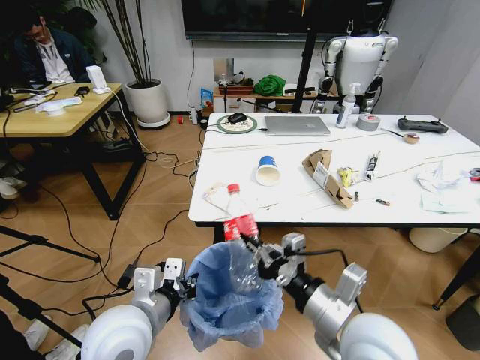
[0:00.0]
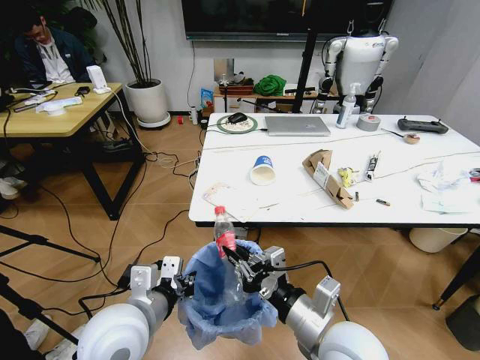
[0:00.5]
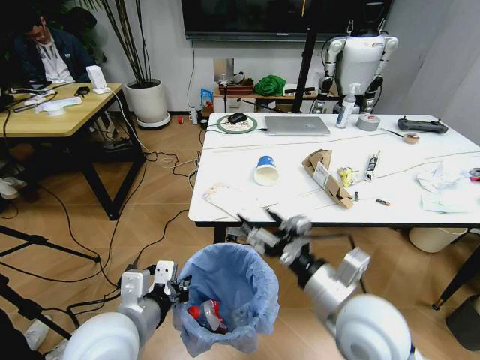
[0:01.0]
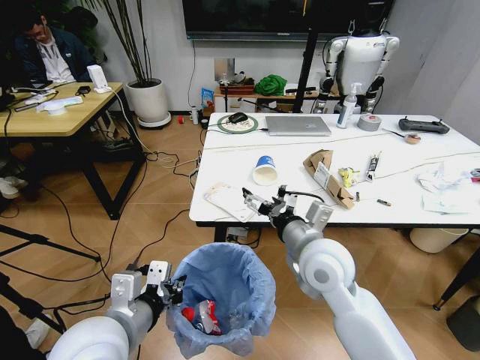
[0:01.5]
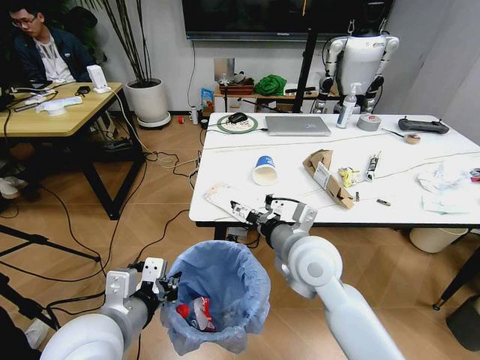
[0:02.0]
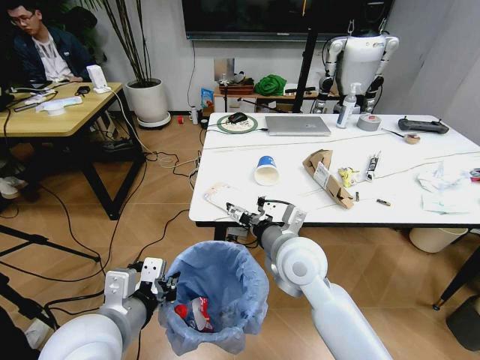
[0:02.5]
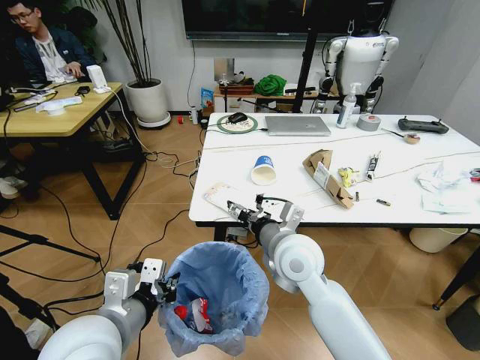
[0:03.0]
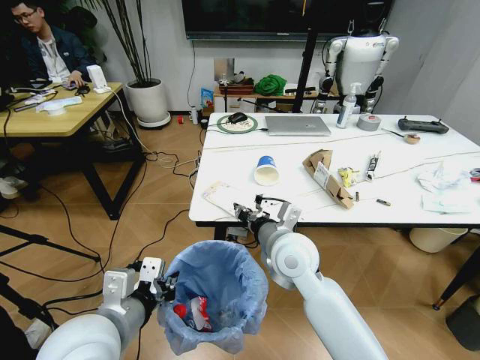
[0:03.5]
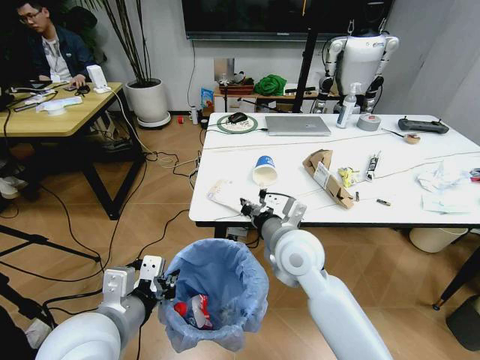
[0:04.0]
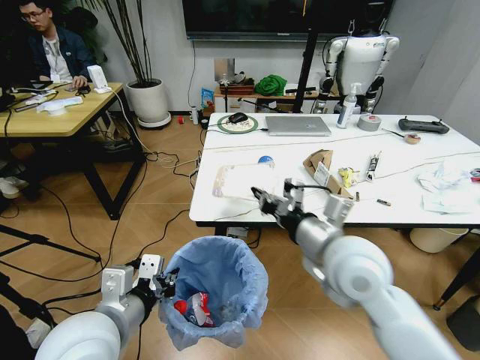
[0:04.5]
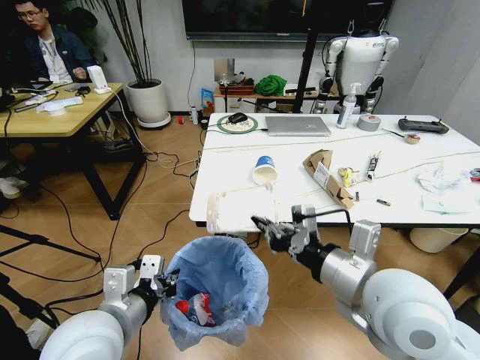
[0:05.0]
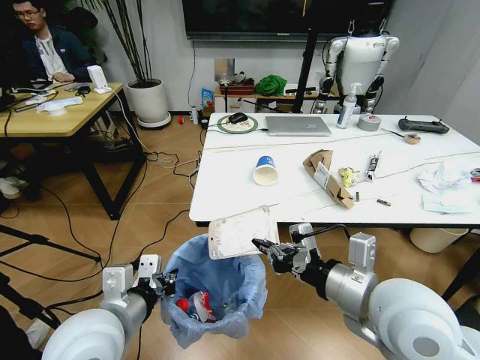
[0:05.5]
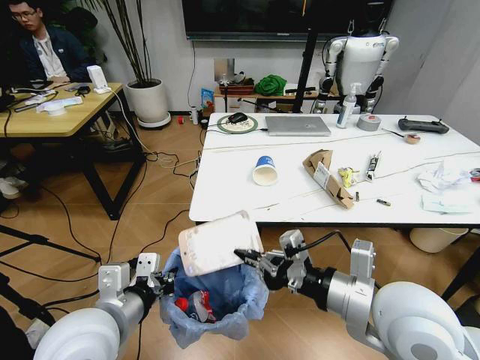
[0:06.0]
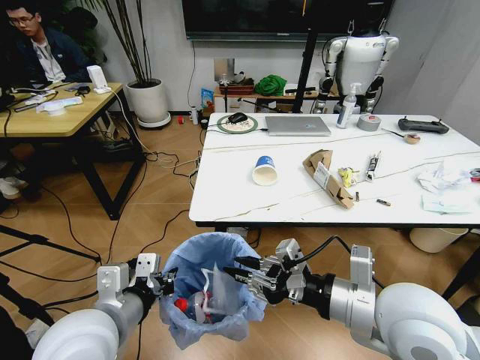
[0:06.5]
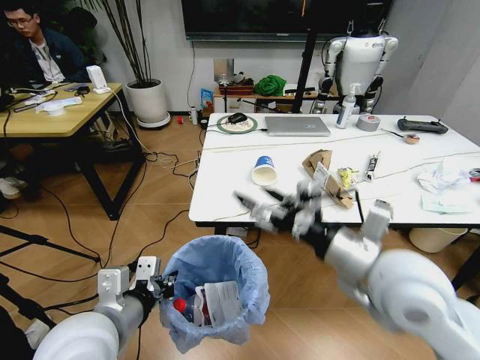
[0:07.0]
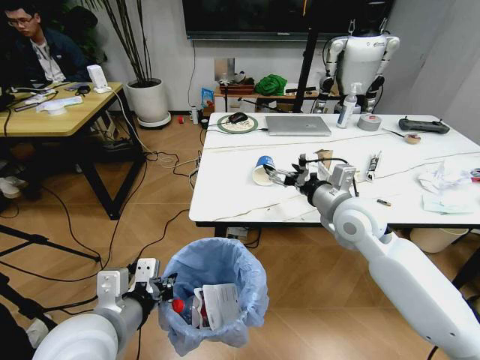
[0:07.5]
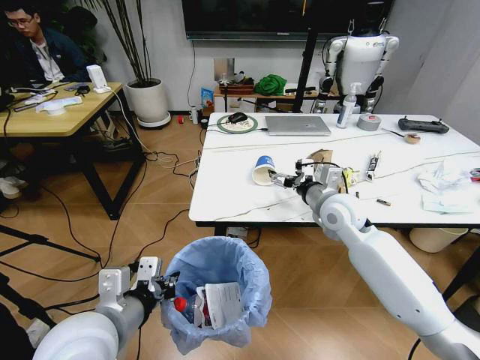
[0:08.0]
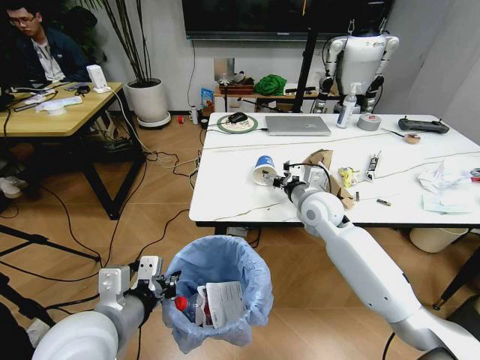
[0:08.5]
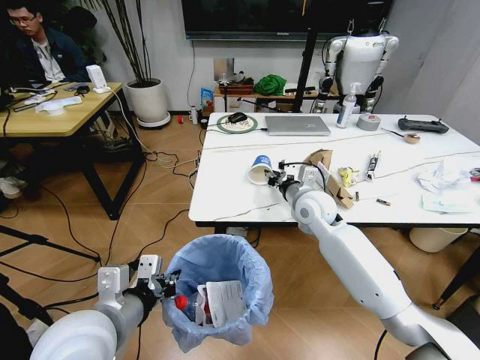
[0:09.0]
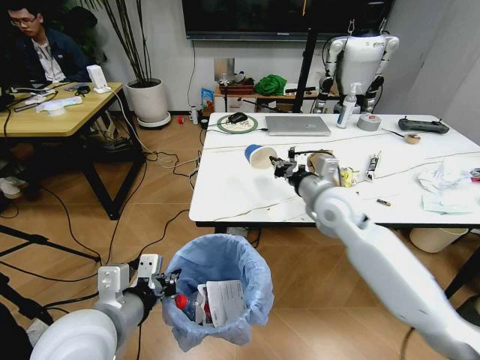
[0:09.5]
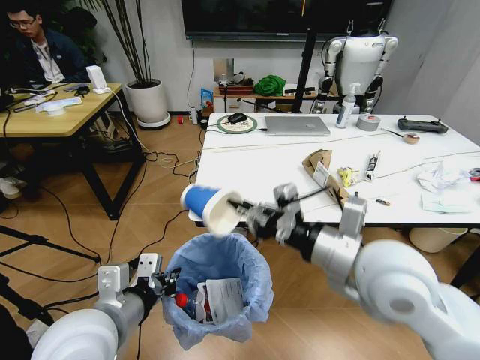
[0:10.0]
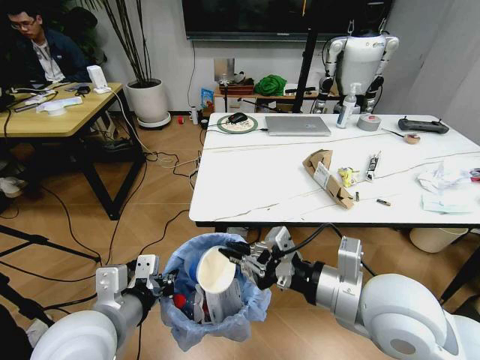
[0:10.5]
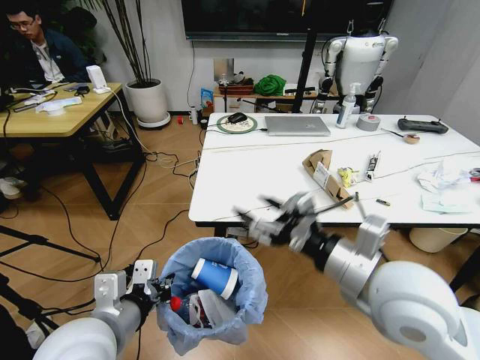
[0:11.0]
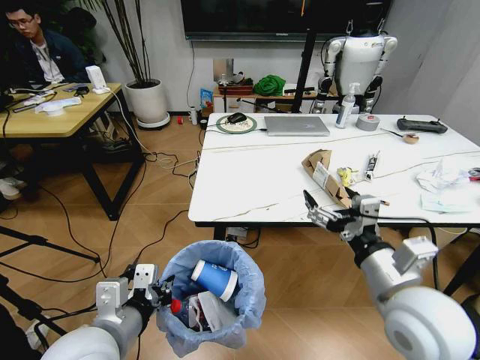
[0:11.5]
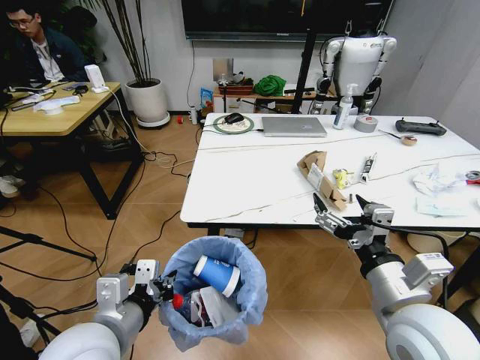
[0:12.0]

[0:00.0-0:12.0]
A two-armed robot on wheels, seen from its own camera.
Task of the whole recording: Pick up the trash bin and place the trash from the table into it.
0:00.0 to 0:02.0: The right gripper shifts some 15 cm forward and to the left, and opens.
0:02.0 to 0:04.0: The right gripper closes its fingers.
0:04.0 to 0:06.0: The right gripper goes some 20 cm backward, to the right and upward.
0:06.0 to 0:08.0: The right gripper moves forward, about 25 cm, and opens up.
0:08.0 to 0:10.0: The right gripper heads backward and upward, covering roughly 20 cm, and closes its fingers.
0:10.0 to 0:12.0: The right gripper heads backward and downward, covering some 10 cm, and opens.

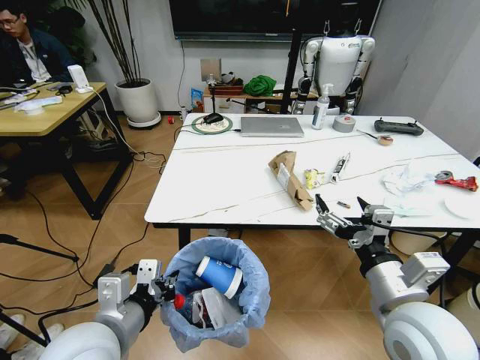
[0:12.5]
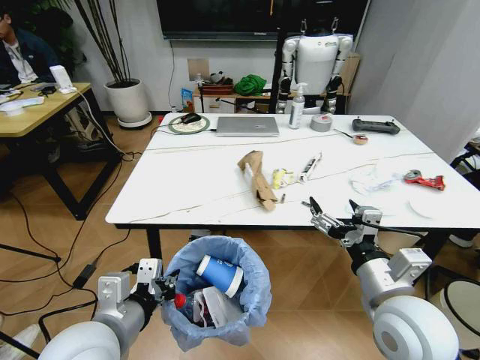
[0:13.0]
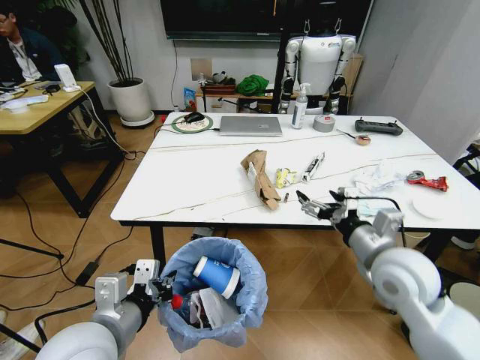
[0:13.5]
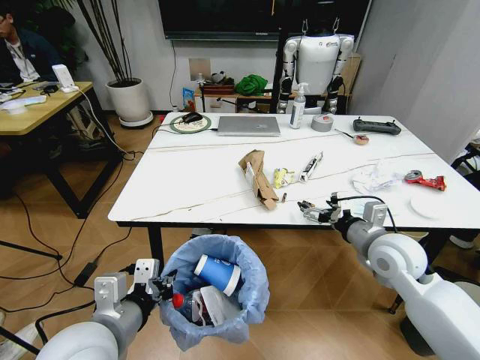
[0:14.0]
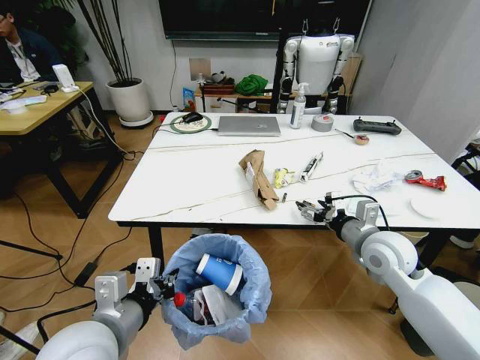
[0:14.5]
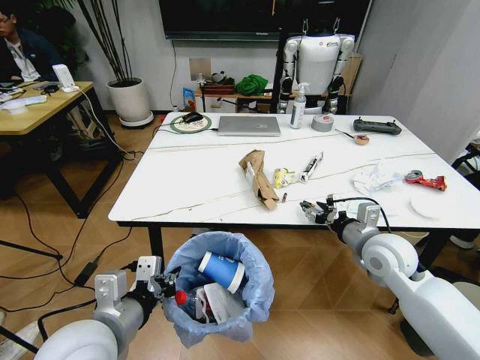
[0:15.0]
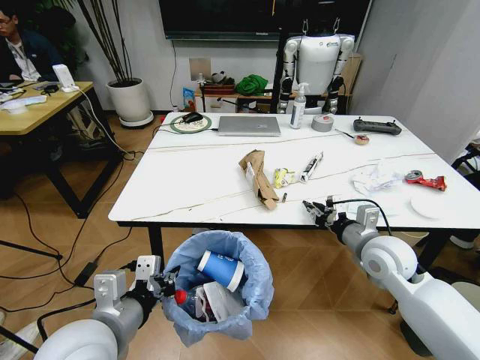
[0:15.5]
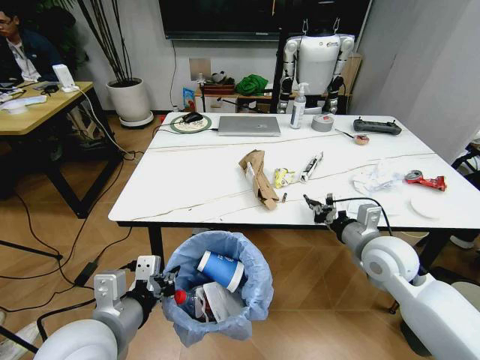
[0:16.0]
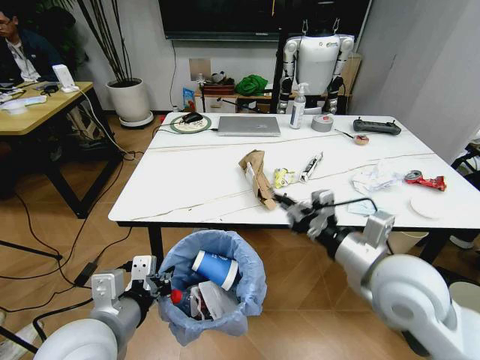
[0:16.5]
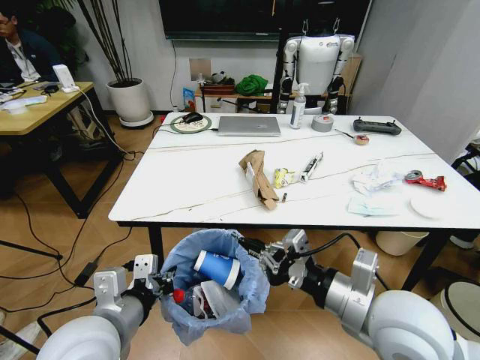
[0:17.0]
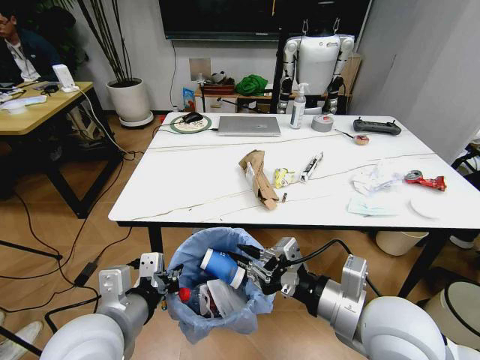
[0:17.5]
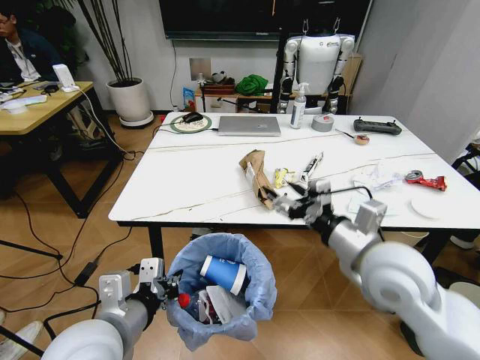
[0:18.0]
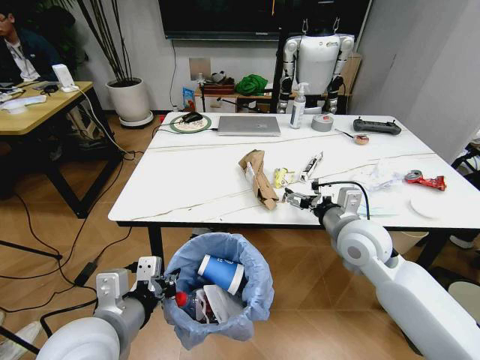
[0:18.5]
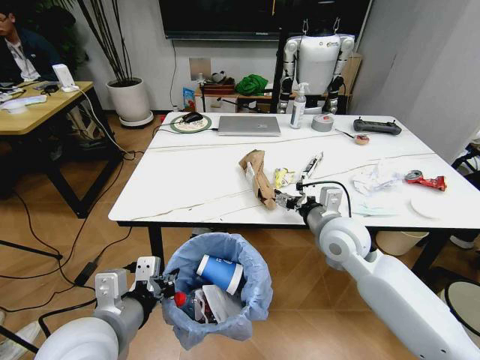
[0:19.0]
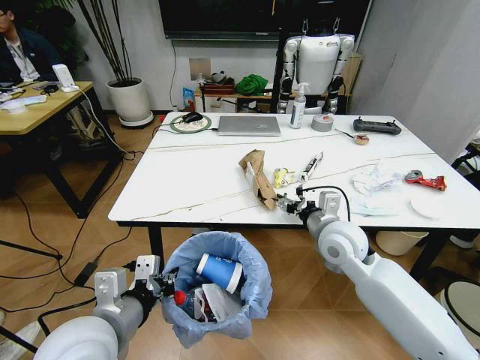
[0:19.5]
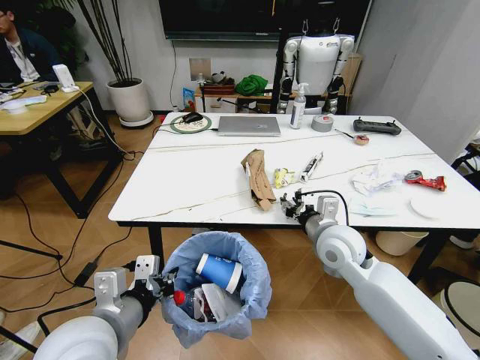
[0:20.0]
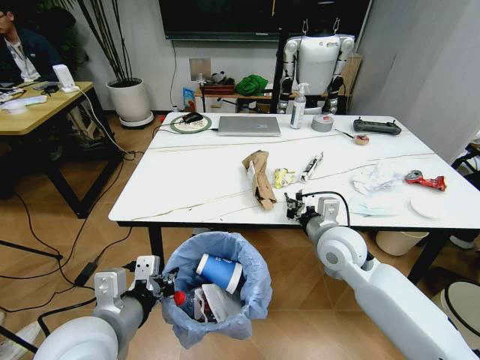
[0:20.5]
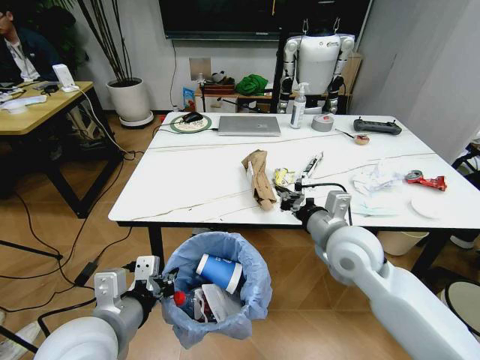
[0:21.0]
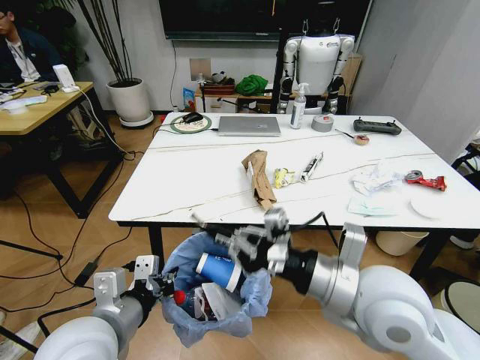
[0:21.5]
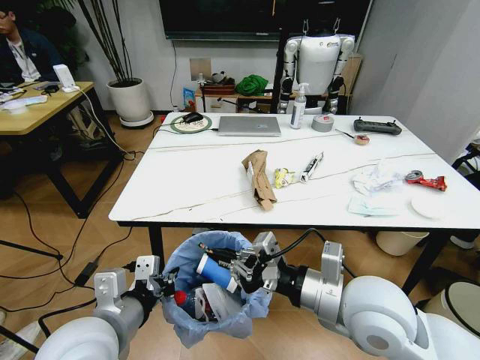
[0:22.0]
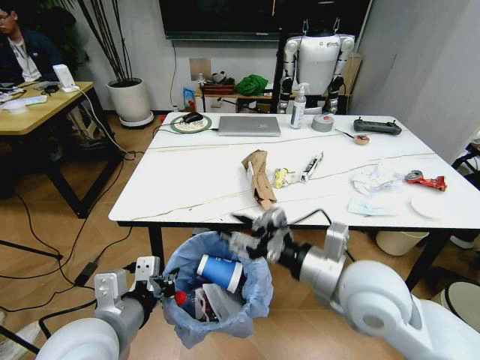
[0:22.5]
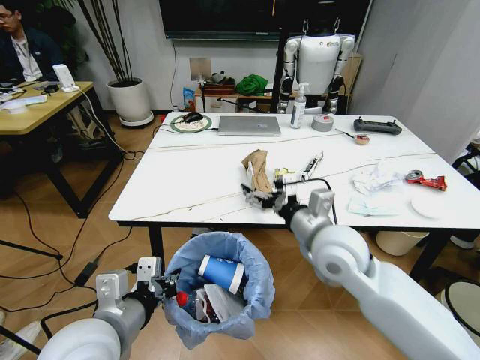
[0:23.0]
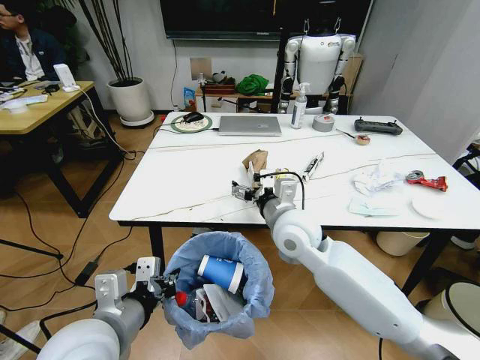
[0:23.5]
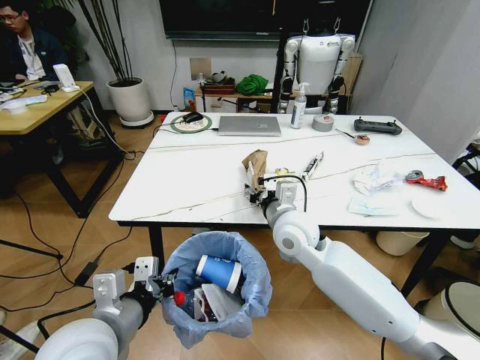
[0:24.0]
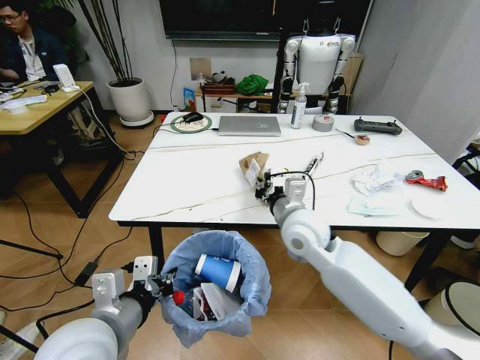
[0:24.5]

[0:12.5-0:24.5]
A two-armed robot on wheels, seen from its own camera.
Task of the whole recording: Pick up the trash bin and place the trash from the table into it.
0:12.5 to 0:14.5: The right gripper travels forward by about 15 cm.
0:14.5 to 0:16.5: The right gripper shifts some 15 cm backward, upward and to the left, and closes up.
0:16.5 to 0:18.5: The right gripper travels forward by approximately 10 cm, and opens.
0:18.5 to 0:20.5: The right gripper closes.
0:20.5 to 0:22.5: The right gripper travels backward and upward by roughly 15 cm, and opens its fingers.
0:22.5 to 0:24.5: The right gripper travels forward and to the left by some 15 cm, and closes up.

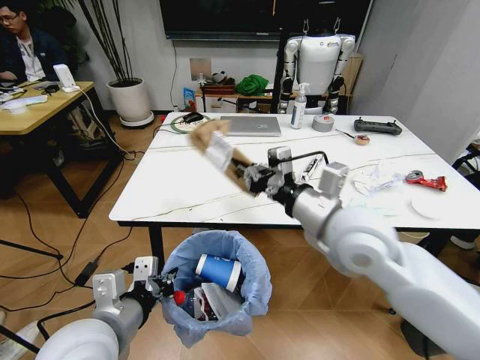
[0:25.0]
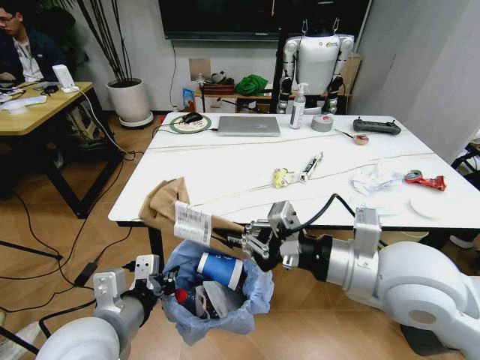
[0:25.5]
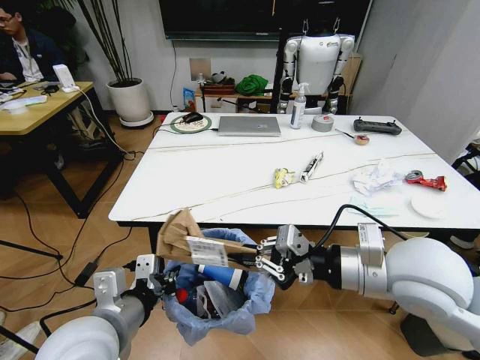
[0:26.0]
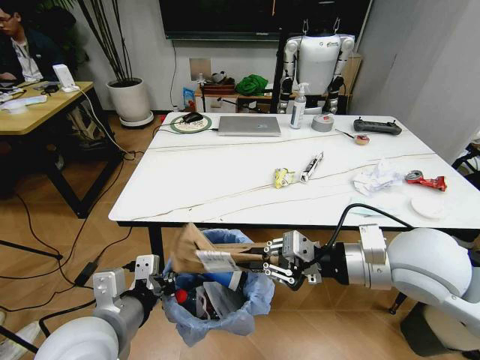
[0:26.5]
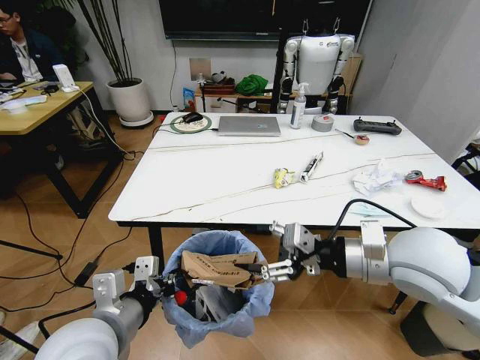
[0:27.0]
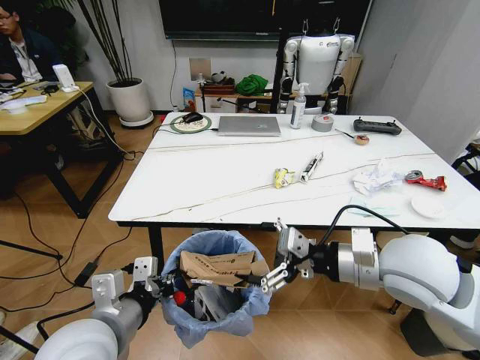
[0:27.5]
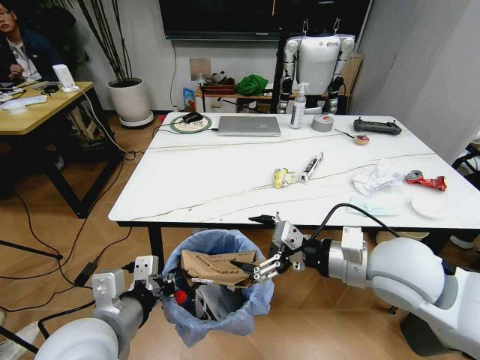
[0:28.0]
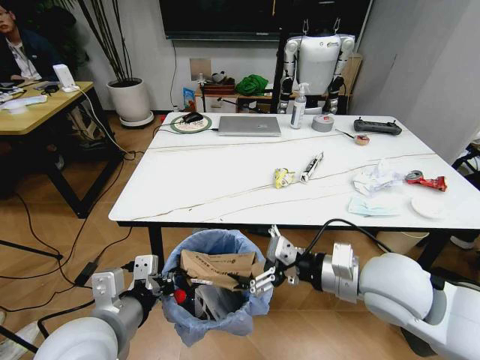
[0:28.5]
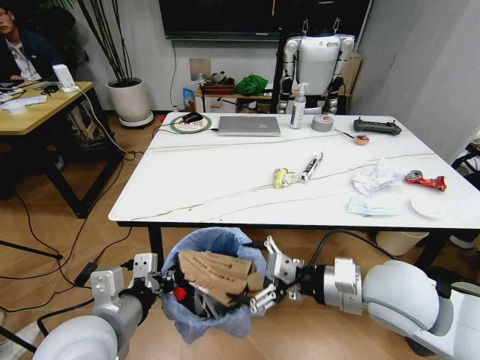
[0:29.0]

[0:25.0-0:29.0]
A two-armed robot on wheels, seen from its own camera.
Task of the whole recording: Pick up the trash bin and place the trash from the table into it.
0:25.0 to 0:27.0: The right gripper is displaced to the right by approximately 10 cm, and opens its fingers.
0:27.0 to 0:29.0: The right gripper moves downward, roughly 5 cm.
